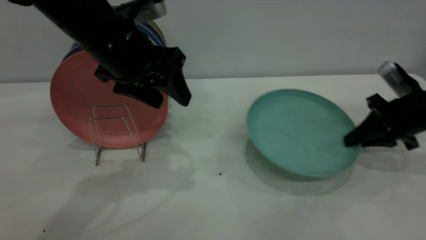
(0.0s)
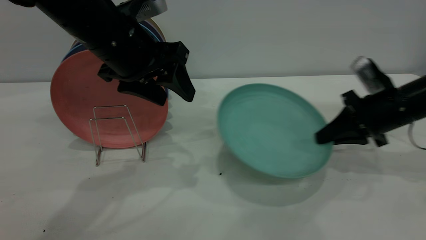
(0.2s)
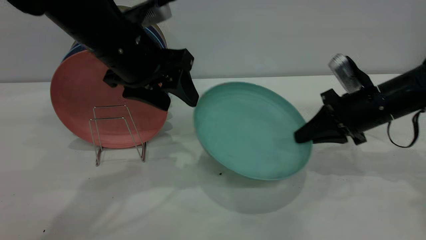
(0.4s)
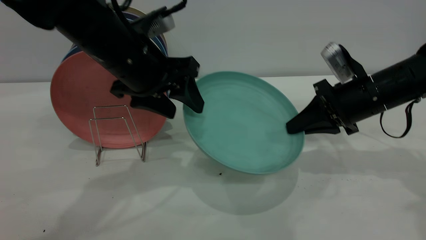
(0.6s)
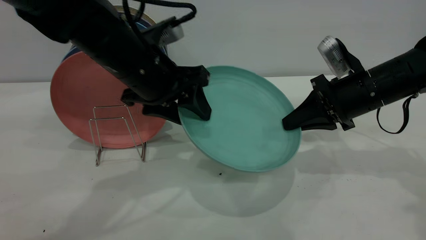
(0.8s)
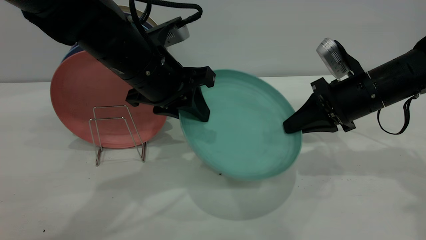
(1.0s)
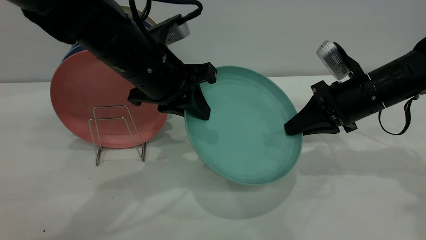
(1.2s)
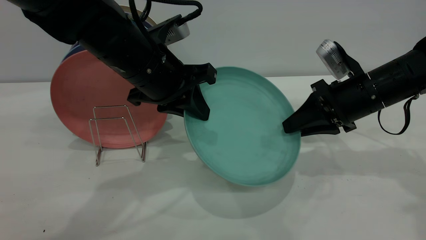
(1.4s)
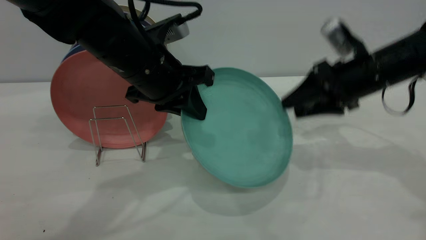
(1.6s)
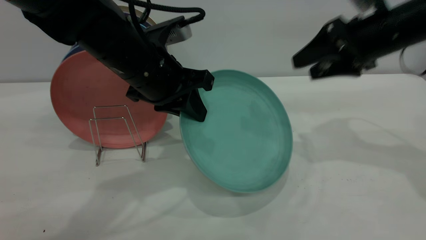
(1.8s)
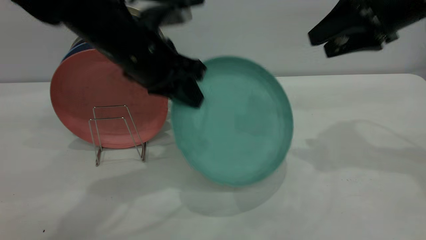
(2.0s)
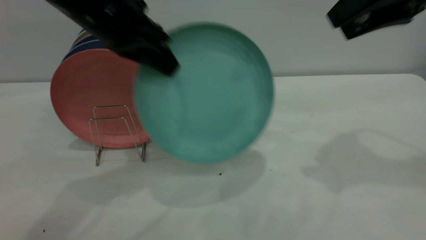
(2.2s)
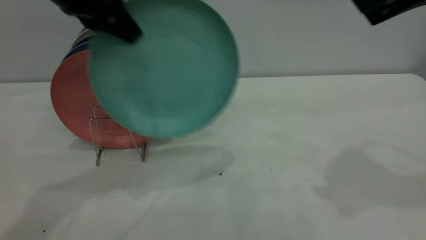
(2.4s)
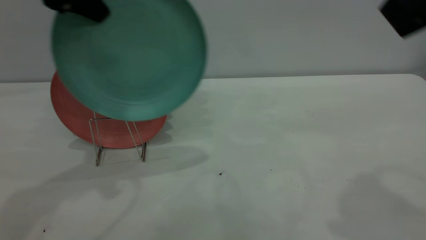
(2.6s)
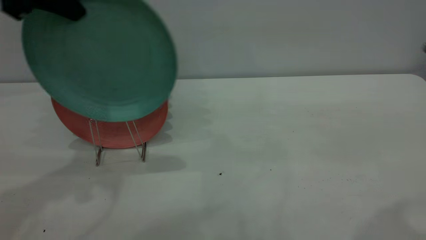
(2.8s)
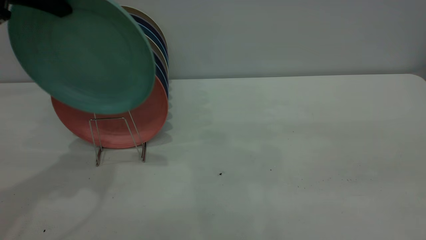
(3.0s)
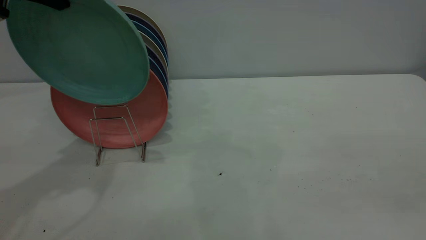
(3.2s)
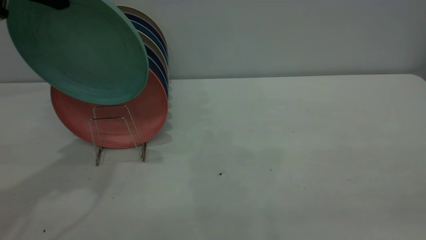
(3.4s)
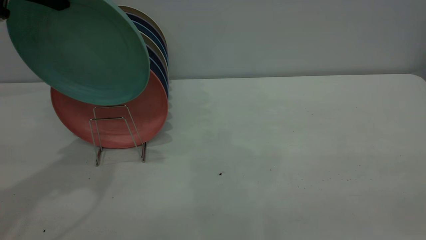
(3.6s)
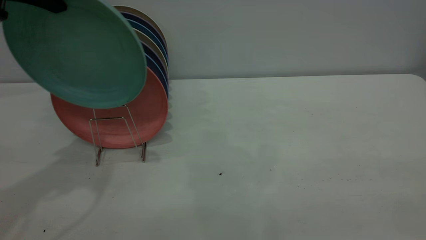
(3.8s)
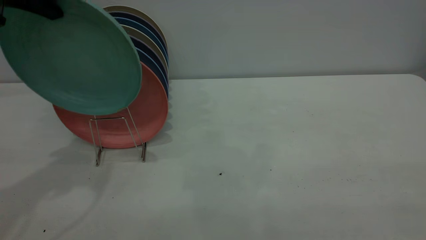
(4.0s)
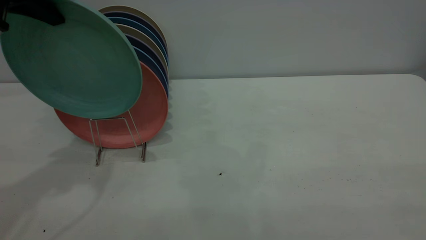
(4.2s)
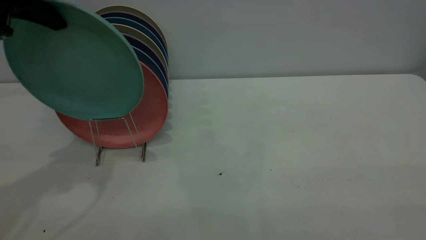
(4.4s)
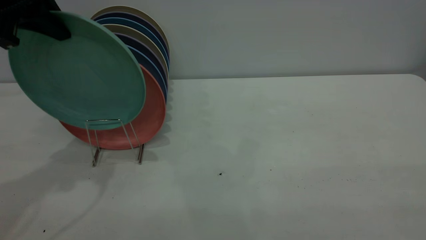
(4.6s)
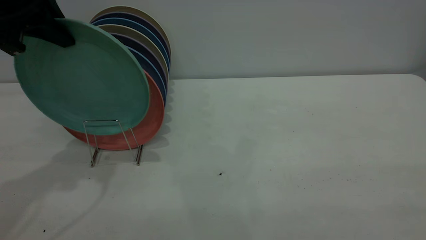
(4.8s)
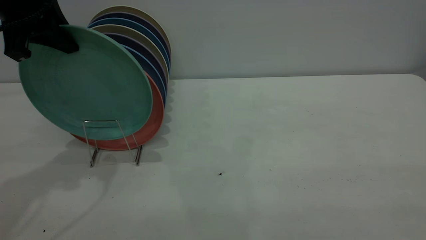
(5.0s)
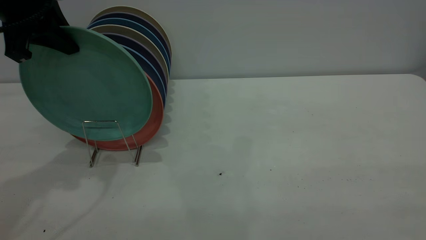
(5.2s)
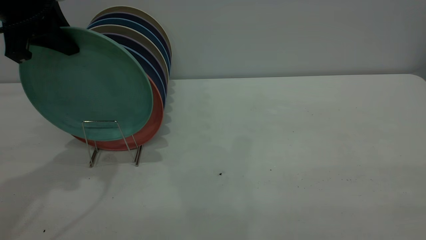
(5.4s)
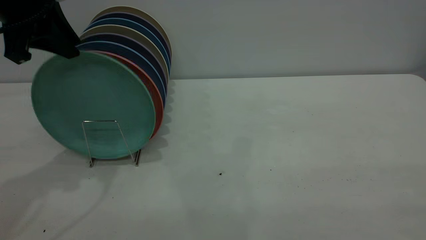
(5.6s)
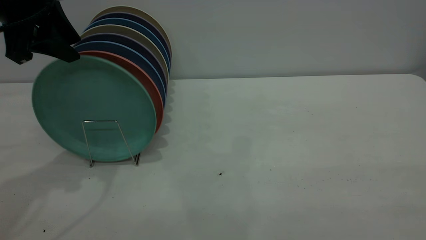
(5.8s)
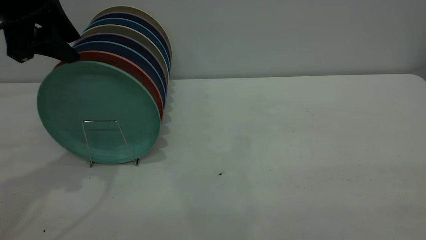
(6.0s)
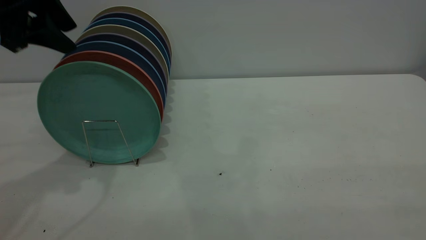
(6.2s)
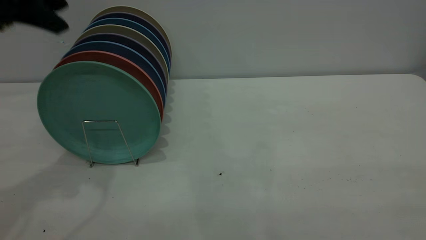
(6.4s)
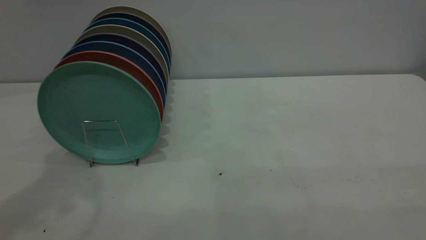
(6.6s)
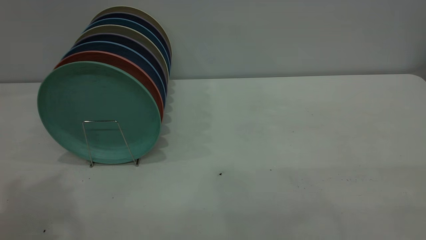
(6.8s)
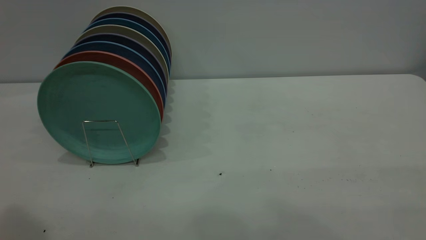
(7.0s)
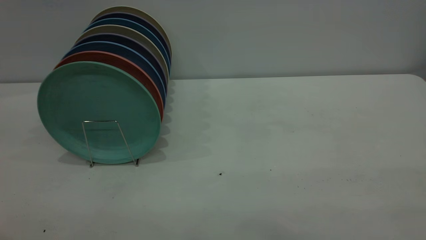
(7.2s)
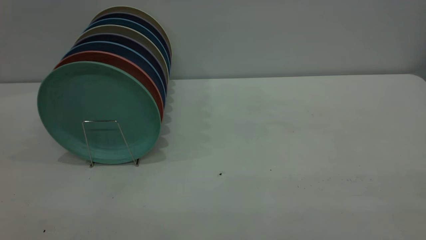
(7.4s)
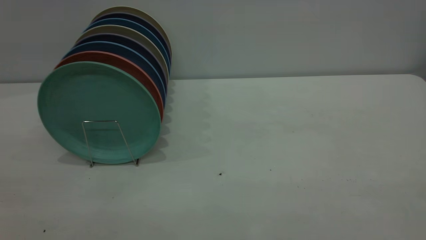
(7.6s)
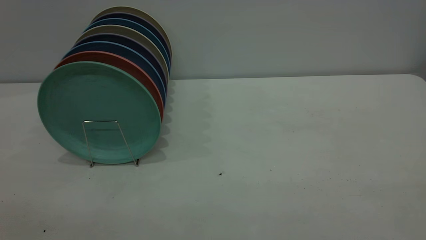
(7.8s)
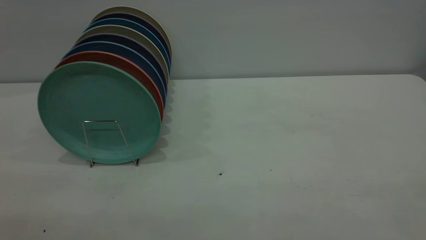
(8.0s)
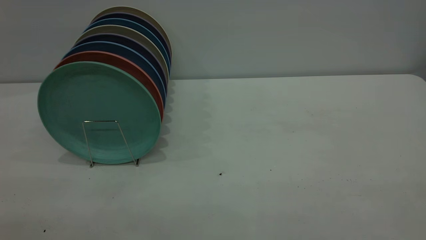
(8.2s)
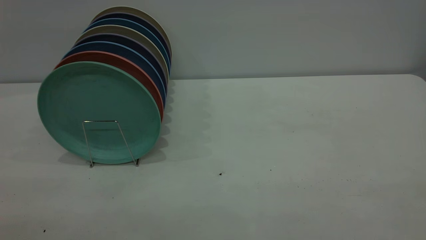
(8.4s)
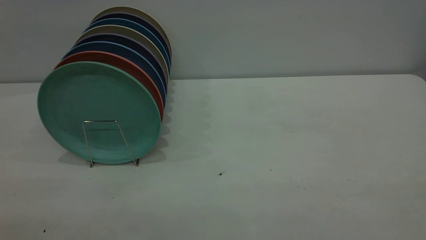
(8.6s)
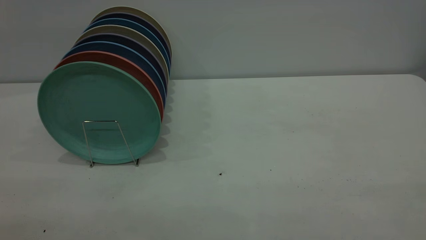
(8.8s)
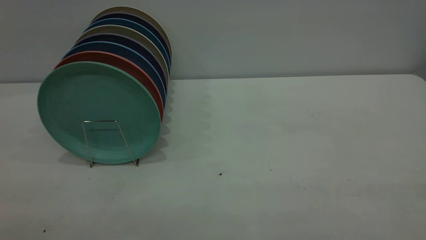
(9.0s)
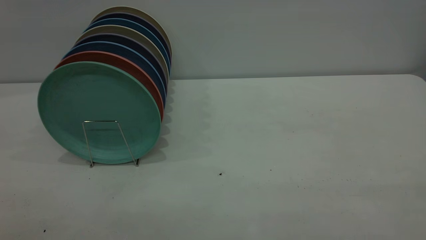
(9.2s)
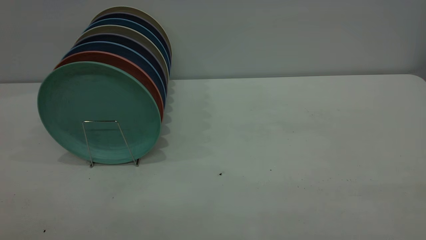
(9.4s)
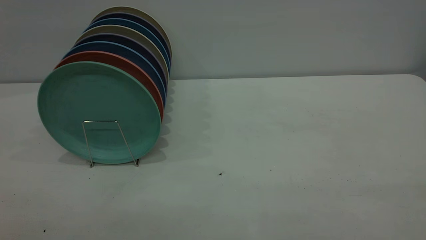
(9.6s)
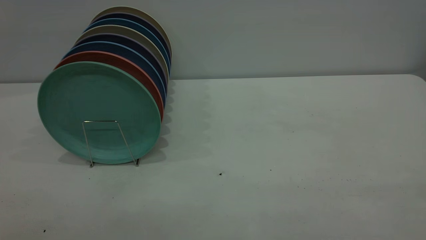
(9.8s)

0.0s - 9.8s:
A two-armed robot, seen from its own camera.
Task of the whole recording: the right gripper grasp the green plate, the right gripper pass the green plate to the left gripper, and the left gripper place the green plate on the plate rack.
Step, 0.2s - 1.6s: Pass the plate from the right gripper to the left gripper.
Step, 1.8s - 6.2s: Place the plate on the shelf.
0.0s - 1.4s: The left gripper closes its fingers, while the right gripper travels to the left by approximately 10 cm, and opens its fingers.
1.4s - 2.8s: The left gripper travels upward and to the left by about 20 cm, while the right gripper goes some 30 cm upward and backward.
2.8s - 4.2s: The right gripper travels backward by some 15 cm.
4.2s - 5.6s: The grippers make only small movements.
5.6s - 7.0s: The left gripper heads backward and upward, covering roughly 25 cm, and opens.

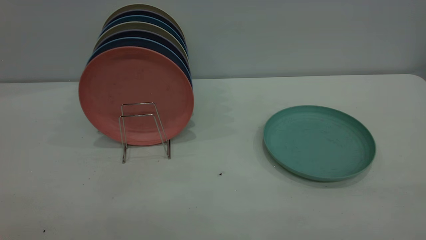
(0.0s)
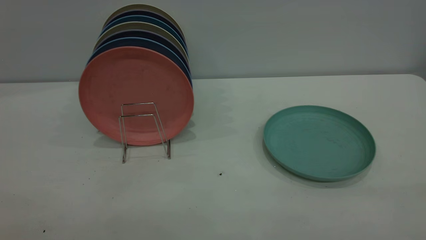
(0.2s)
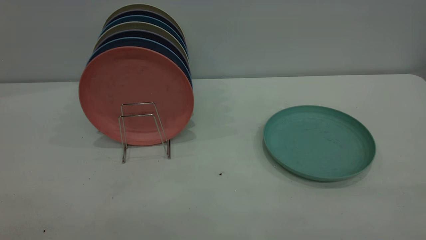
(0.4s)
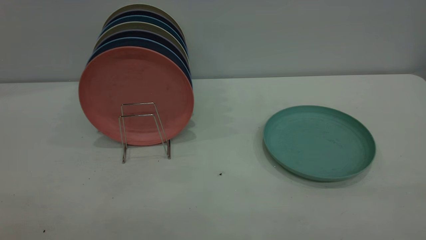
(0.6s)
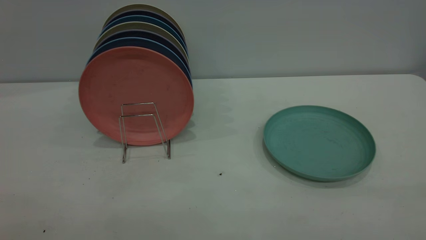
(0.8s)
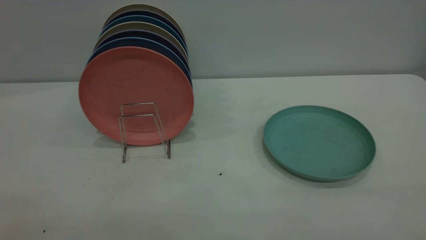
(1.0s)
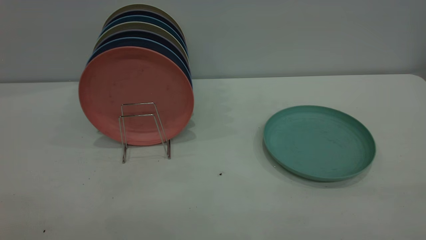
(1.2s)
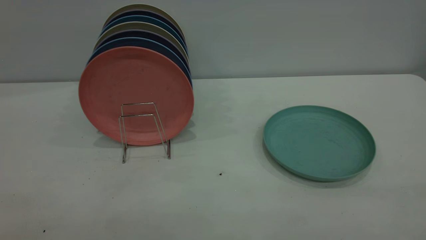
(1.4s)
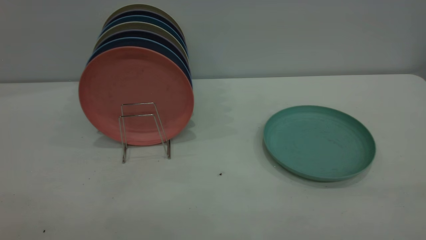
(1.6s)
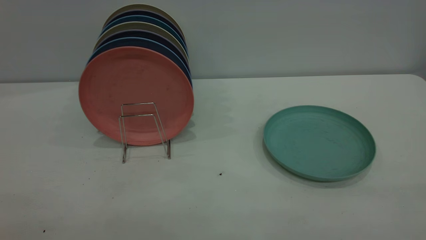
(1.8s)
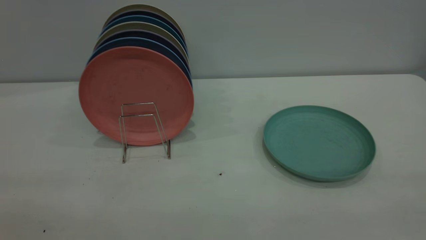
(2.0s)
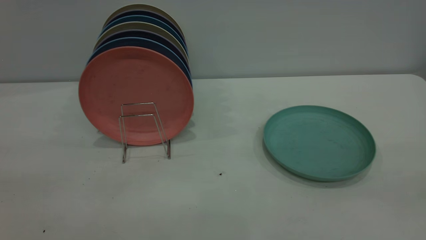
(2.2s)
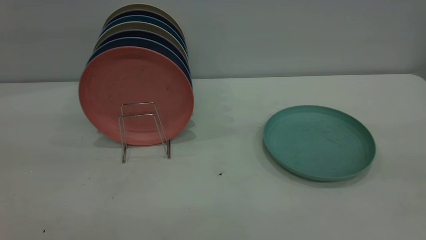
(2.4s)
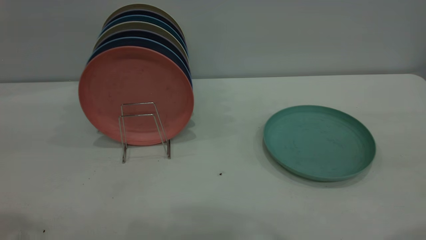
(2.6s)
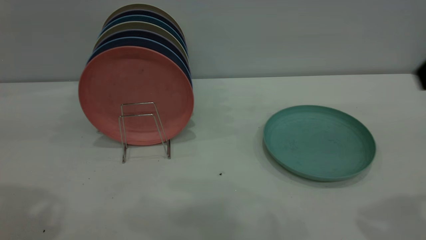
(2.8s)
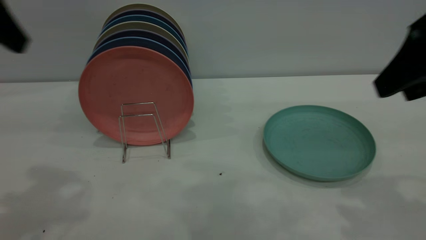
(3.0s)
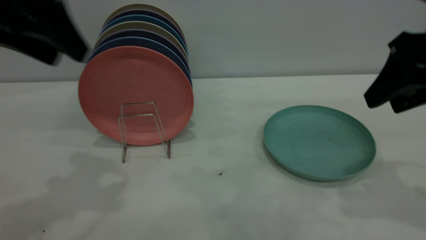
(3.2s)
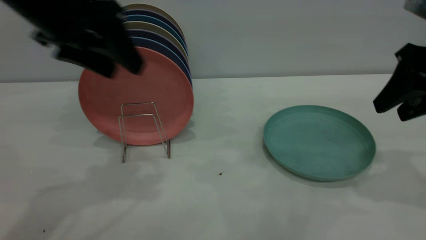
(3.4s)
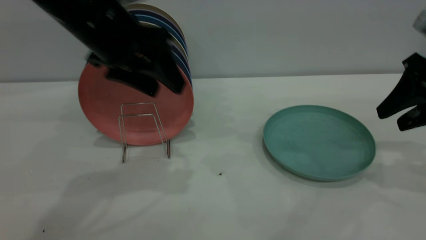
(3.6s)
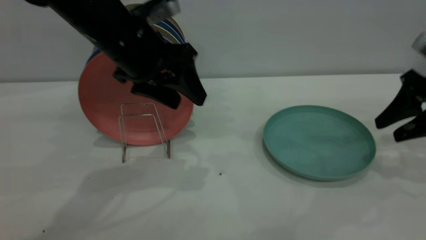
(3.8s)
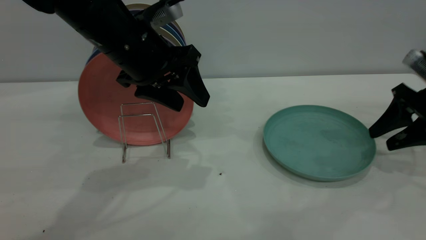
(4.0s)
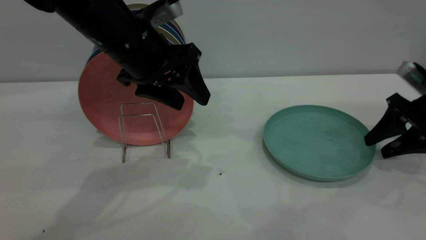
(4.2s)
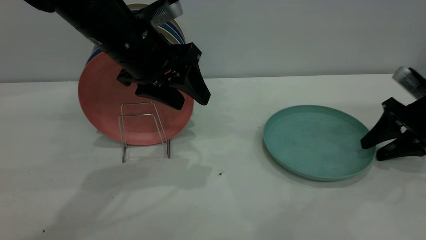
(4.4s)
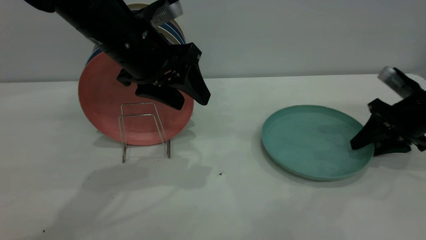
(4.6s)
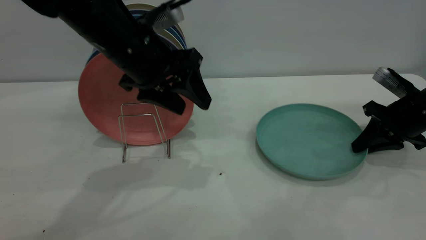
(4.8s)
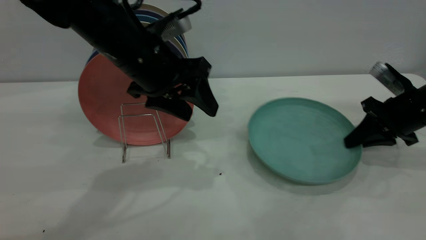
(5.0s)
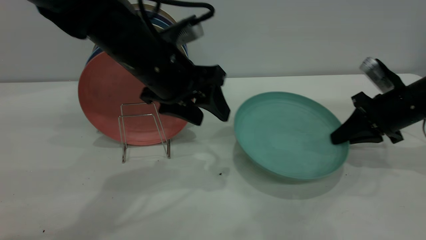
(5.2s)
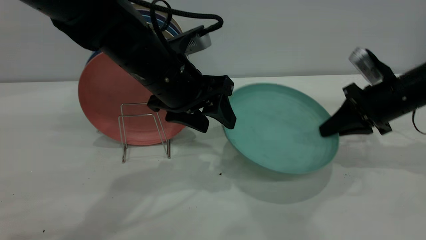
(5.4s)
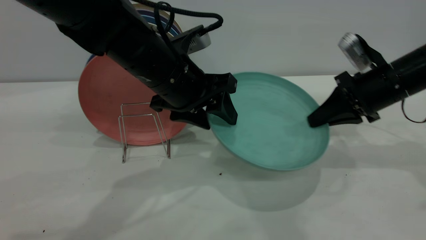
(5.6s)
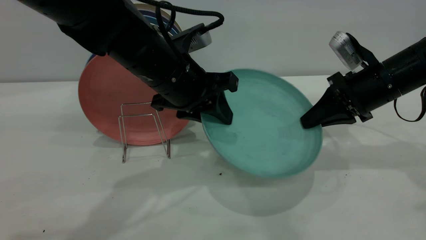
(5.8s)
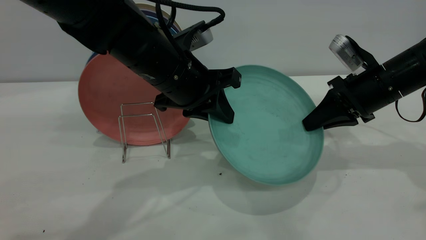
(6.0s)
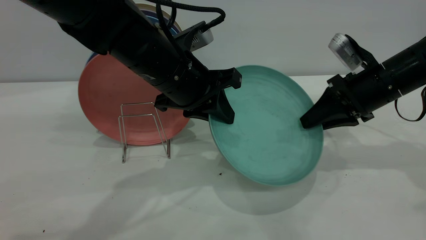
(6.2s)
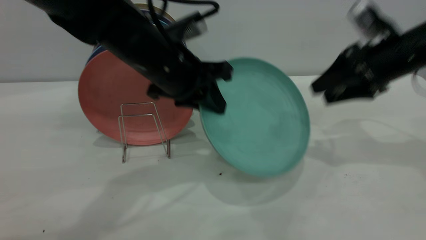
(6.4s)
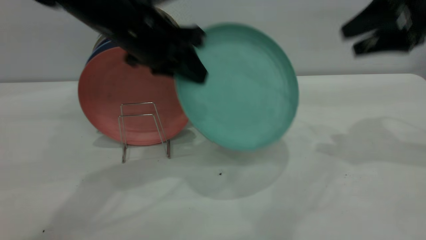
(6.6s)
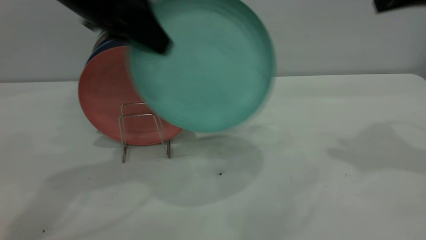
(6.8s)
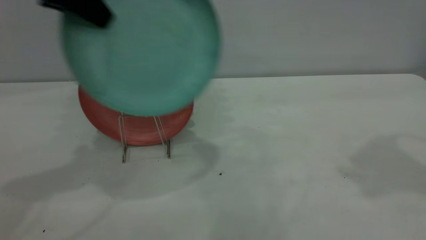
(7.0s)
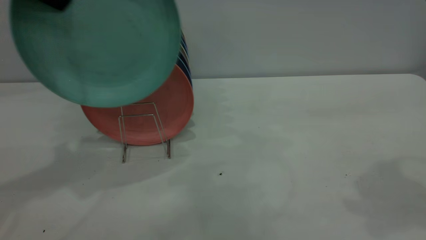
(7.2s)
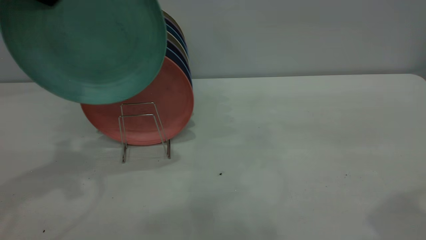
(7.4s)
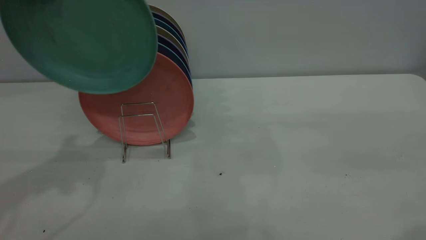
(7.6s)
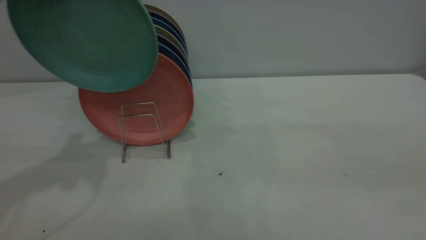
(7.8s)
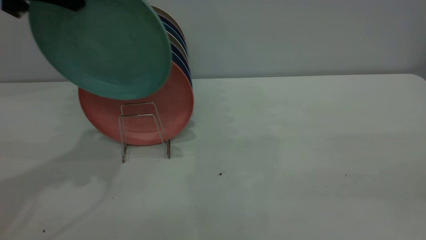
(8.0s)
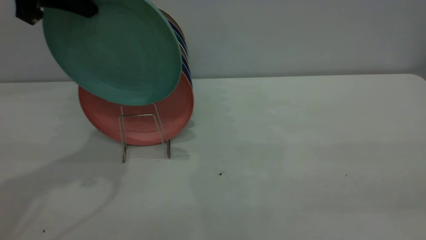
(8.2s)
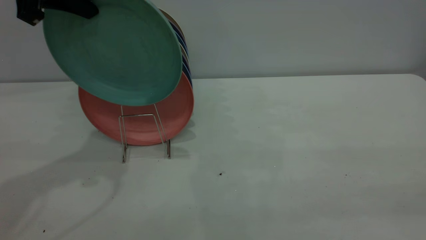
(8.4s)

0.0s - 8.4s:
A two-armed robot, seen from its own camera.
Task of the whole recording: the right gripper grasp the green plate, the right gripper pass the green plate to the left gripper, and the left gripper place the green plate on the plate rack.
Step, 0.0s - 5.0s: Pick up the plate with the right gripper.
Step, 5.2s - 6.2s: Pass the plate from the right gripper to the left gripper.
0.0s - 1.4s: The two grippers keep their place.
2.8s - 4.2s: The left gripper goes approximately 25 cm to the right, downward and forward; the right gripper goes about 30 cm downward, forward and to the right.
4.2s - 5.6s: The right gripper is displaced to the left by roughly 10 cm, and closes its fingers; the left gripper ends up some 5 cm from where it was.
5.6s - 7.0s: The left gripper heads upward and to the left, covering about 25 cm, and closes its fingers. Meanwhile the right gripper shifts roughly 25 cm upward, and opens.
7.0s - 8.4s: The right gripper moves backward, about 25 cm.
